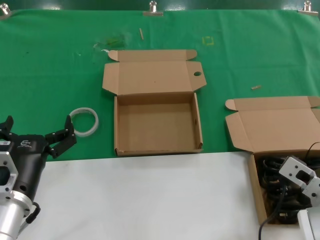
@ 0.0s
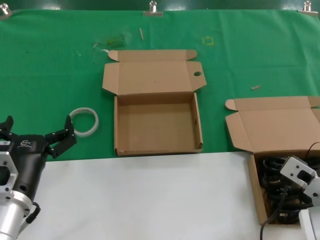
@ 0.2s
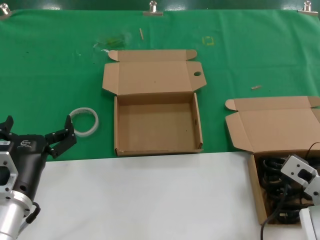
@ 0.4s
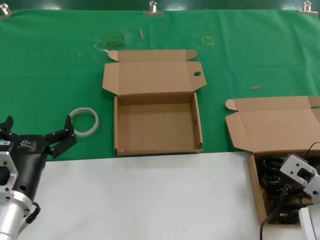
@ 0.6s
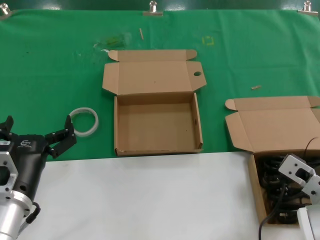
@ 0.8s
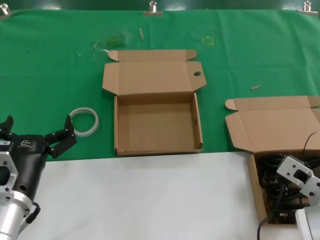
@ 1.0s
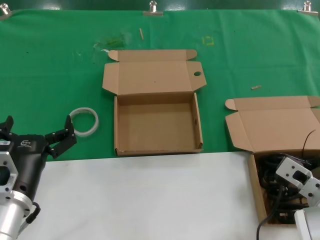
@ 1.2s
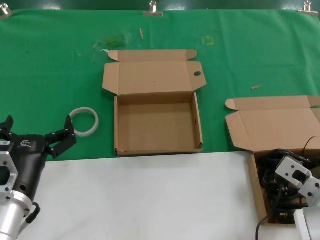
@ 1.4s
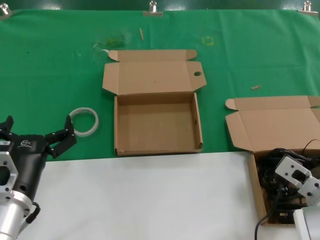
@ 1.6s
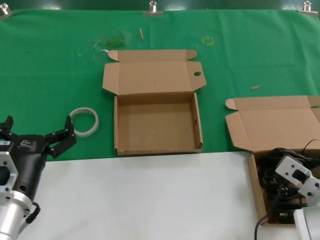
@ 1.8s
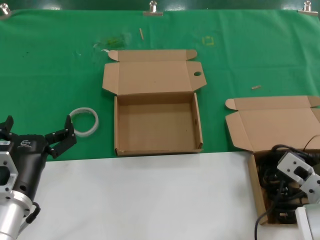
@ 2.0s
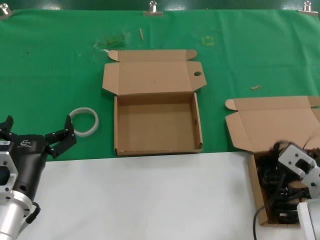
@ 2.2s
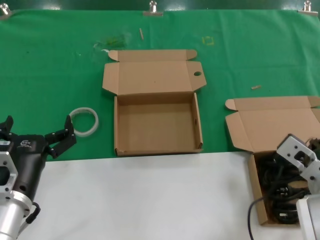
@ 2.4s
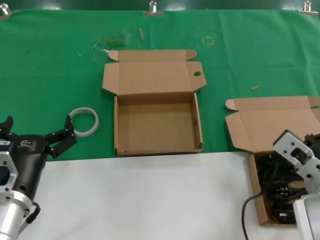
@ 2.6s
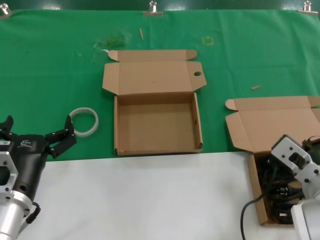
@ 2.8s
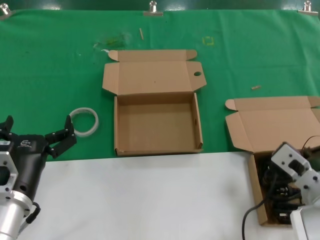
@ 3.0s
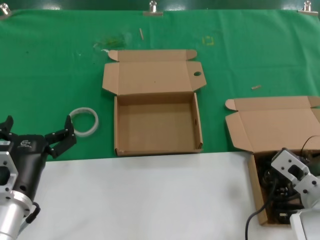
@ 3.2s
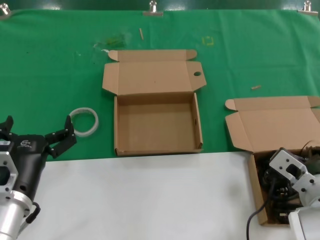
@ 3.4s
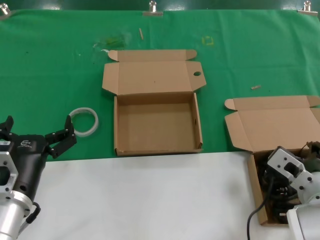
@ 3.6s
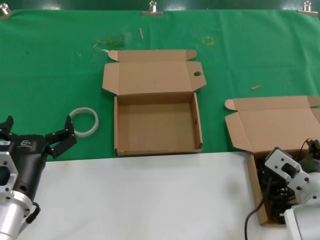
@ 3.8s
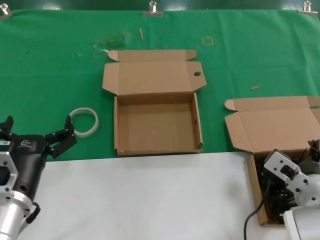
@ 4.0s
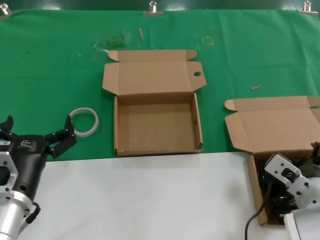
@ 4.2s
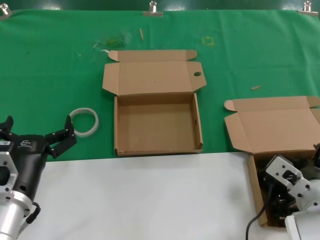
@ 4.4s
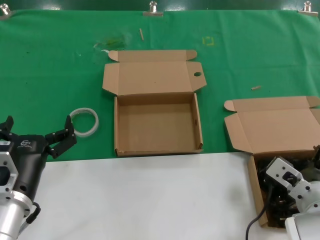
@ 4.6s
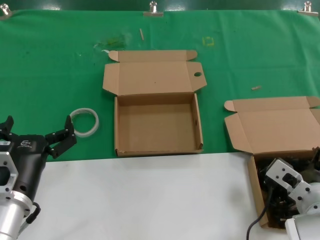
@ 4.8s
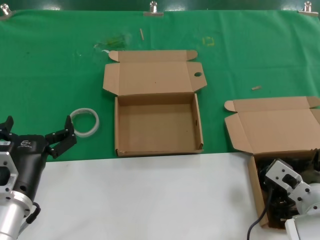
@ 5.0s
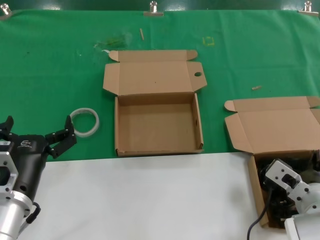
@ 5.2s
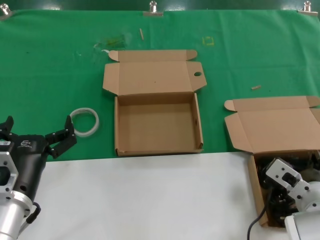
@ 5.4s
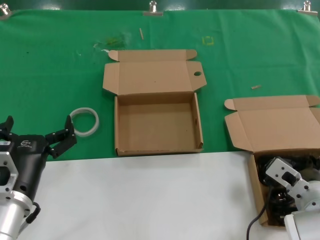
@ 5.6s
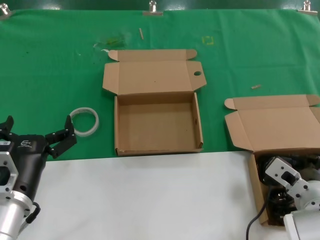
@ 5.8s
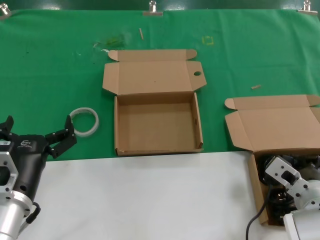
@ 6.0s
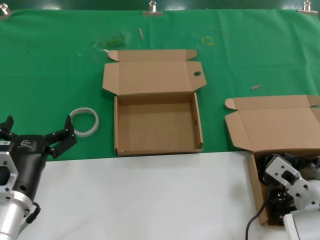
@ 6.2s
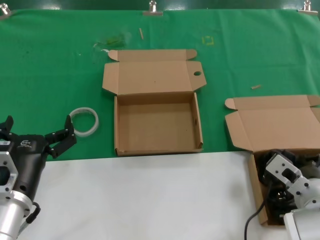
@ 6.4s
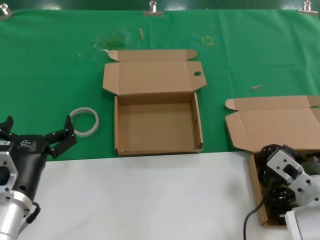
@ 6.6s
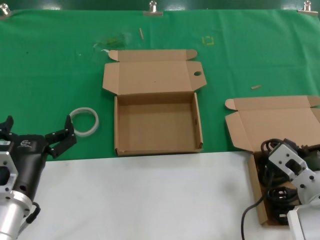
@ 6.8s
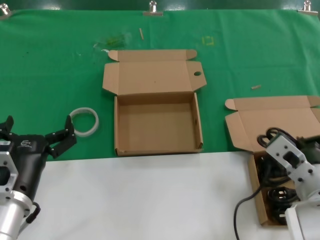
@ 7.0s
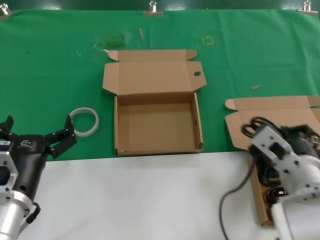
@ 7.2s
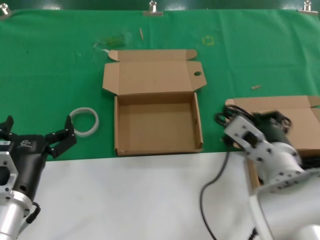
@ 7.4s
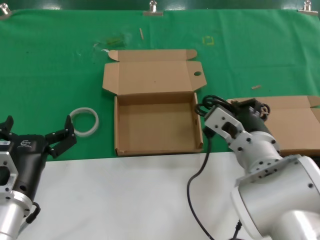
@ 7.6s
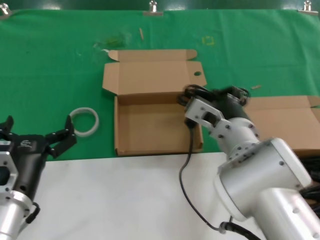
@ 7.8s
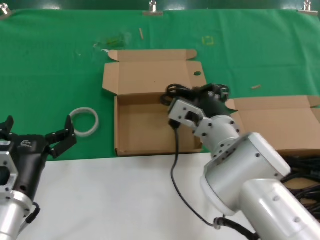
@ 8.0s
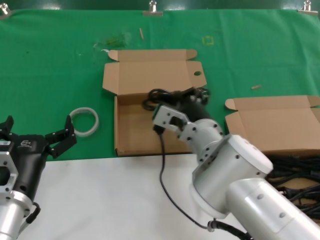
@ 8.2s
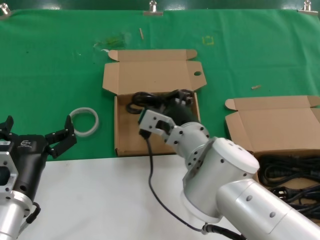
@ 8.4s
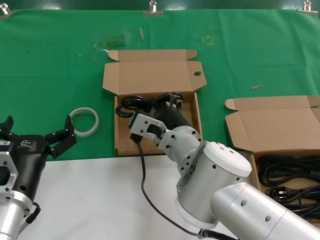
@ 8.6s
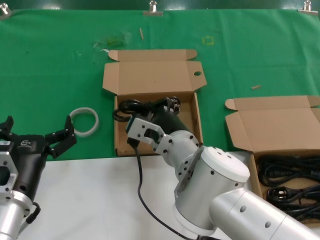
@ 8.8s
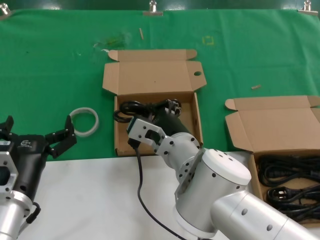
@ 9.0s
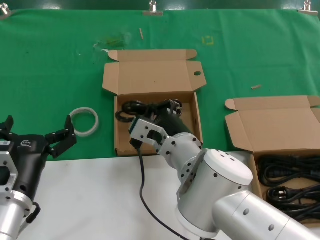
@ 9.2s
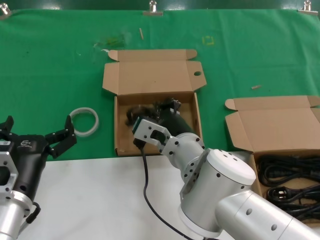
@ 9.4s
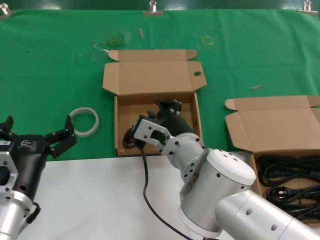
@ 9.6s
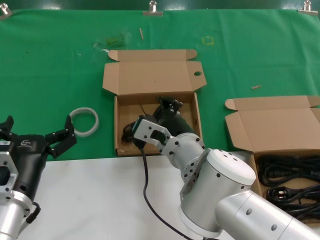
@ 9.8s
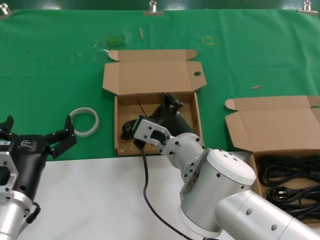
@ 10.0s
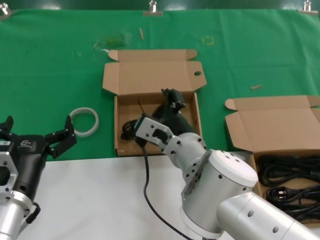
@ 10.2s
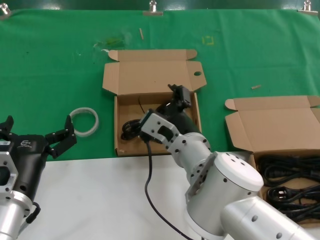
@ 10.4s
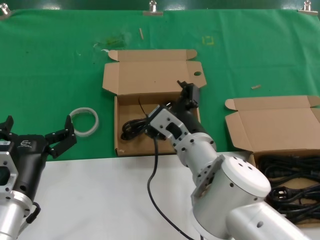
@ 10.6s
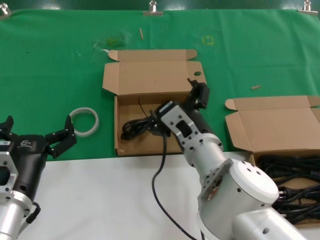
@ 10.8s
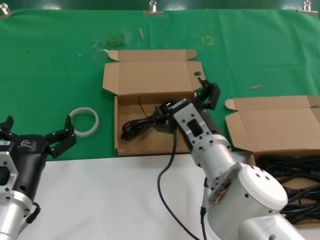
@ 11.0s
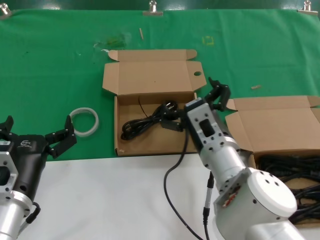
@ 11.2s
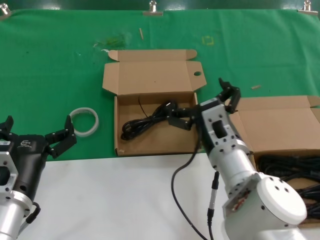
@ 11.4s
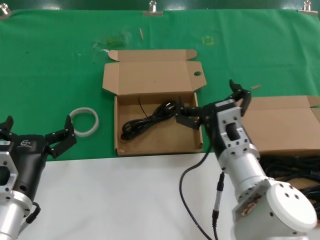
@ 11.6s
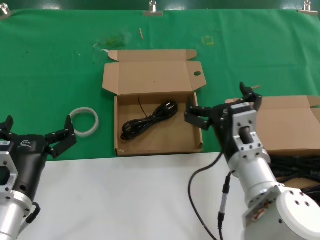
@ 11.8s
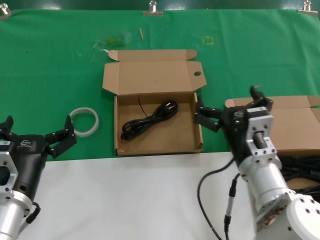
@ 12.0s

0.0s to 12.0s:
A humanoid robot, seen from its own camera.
Task of the whole recording: take the parts from the box containing them and put them into an empty box.
Step, 0.0s to 6.0s: Grasp the data cable.
Step, 6.2s to 9.6s: Place the data cable in the another box.
0.0s to 1.6s: Neither hand changes place.
3.0s to 6.0s: There are only small adjustments of the hands.
6.0s to 7.6s: The right hand moves to the left and upward, some 15 cm.
7.6s to 9.0s: The right hand is displaced to the left by about 10 cm.
9.0s to 10.4s: The hands make only small movements.
10.4s to 12.0s: The right hand is displaced to the right by some 10 cm.

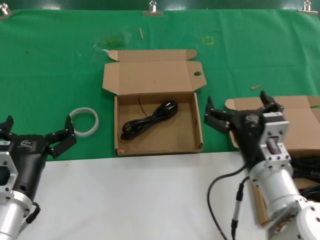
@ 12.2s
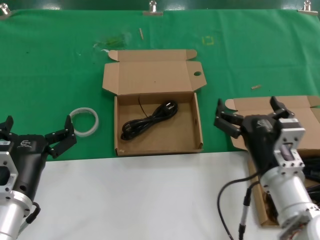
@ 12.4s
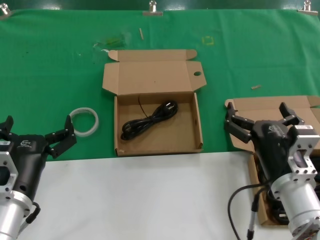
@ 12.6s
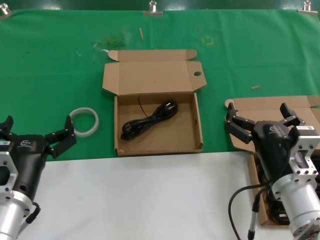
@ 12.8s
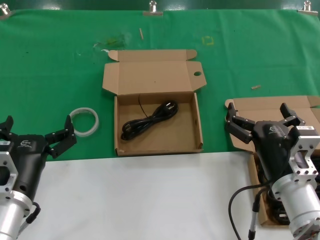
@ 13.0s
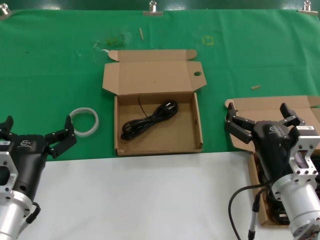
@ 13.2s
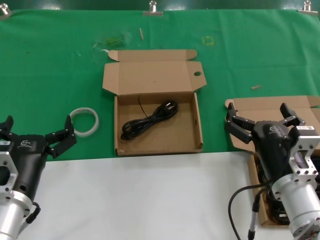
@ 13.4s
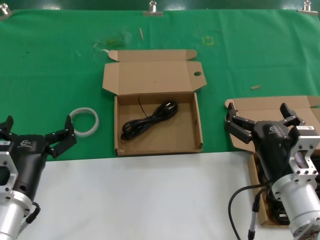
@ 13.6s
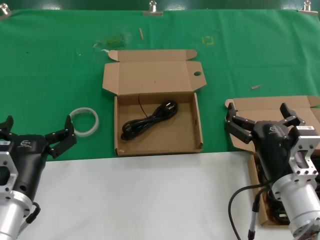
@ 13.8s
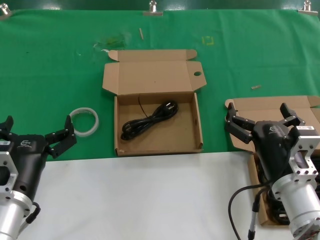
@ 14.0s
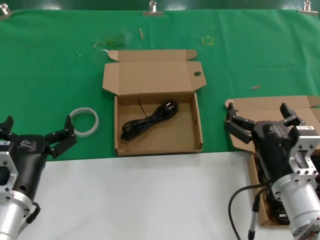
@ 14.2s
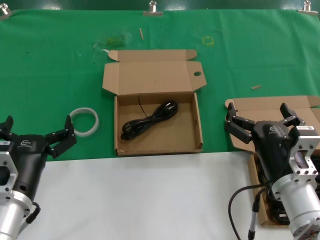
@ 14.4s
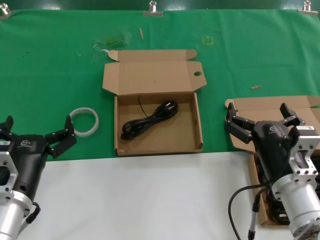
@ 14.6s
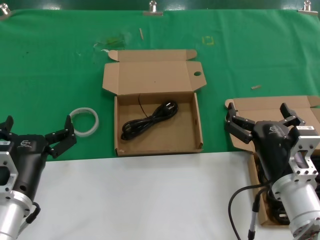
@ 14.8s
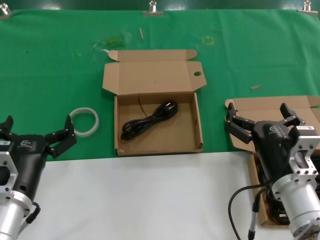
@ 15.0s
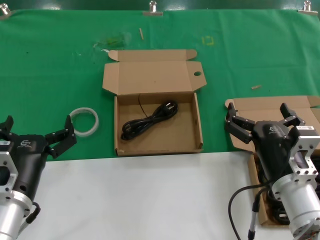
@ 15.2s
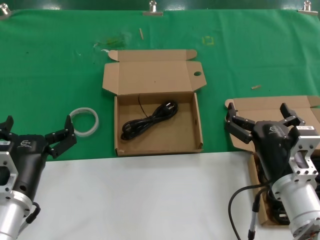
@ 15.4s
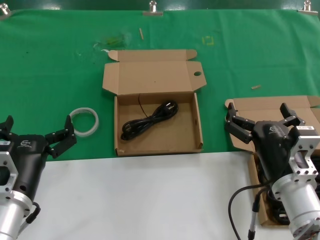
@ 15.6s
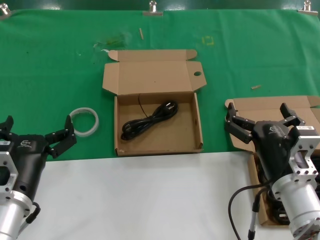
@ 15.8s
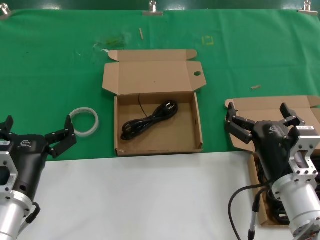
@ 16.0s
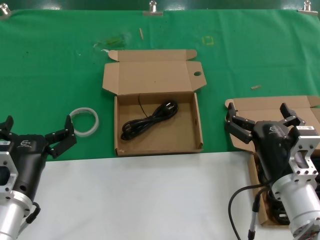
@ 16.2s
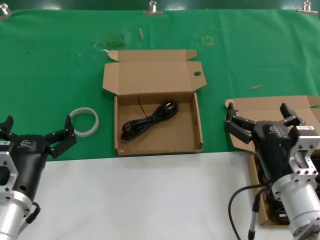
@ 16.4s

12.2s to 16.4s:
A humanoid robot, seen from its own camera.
Task of the whole recording: take the parts from the box containing them and put them into an empty box.
12.2s to 13.6s: There are only small adjustments of the hands.
13.6s to 16.4s: Neither hand changes place.
